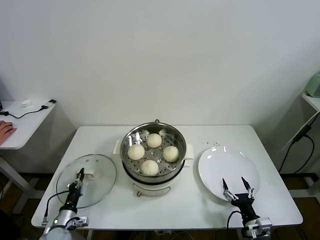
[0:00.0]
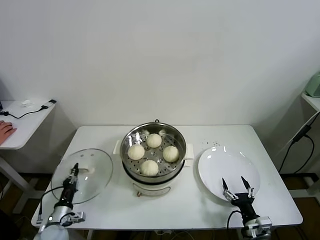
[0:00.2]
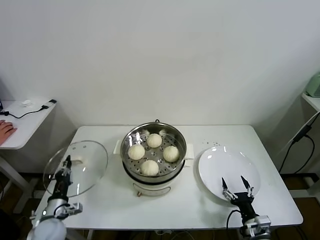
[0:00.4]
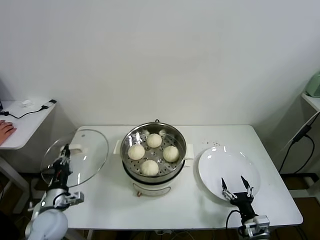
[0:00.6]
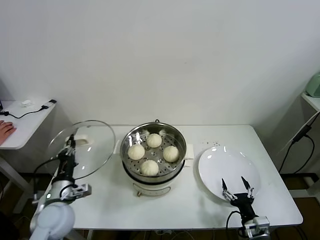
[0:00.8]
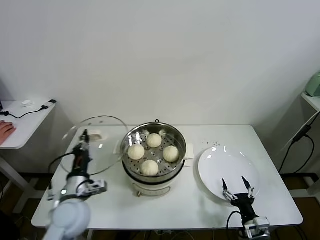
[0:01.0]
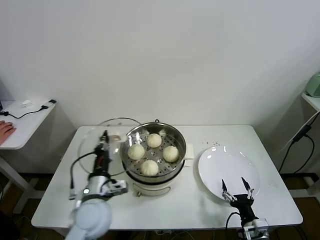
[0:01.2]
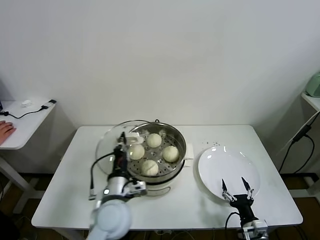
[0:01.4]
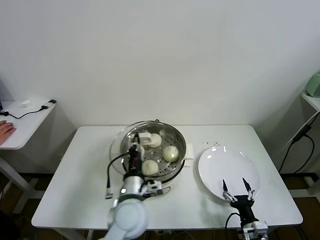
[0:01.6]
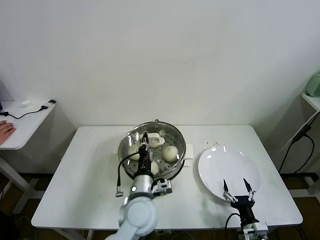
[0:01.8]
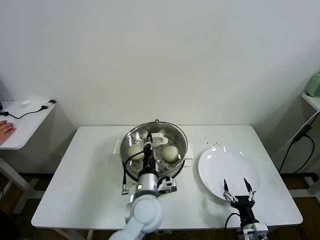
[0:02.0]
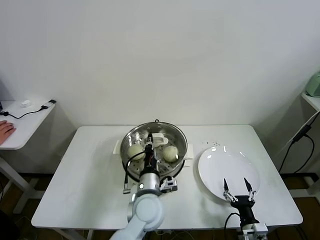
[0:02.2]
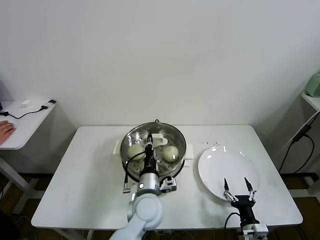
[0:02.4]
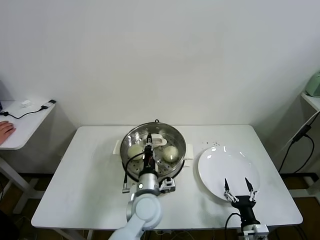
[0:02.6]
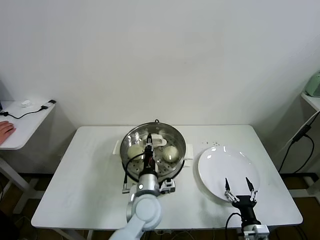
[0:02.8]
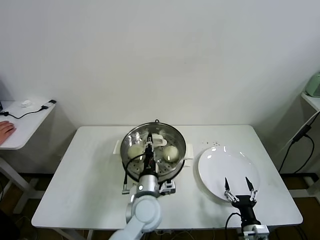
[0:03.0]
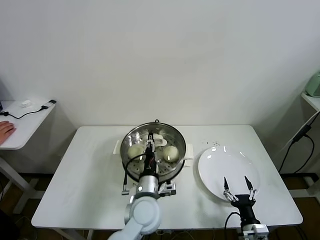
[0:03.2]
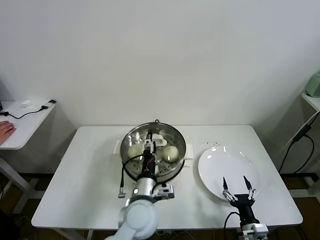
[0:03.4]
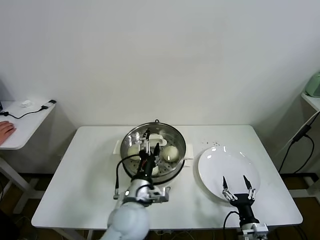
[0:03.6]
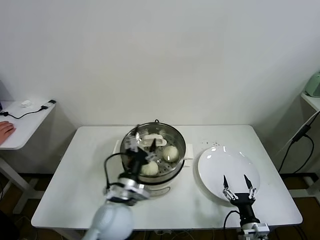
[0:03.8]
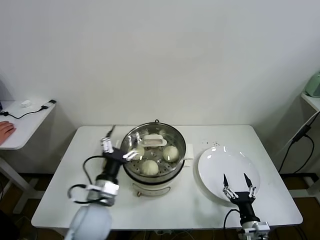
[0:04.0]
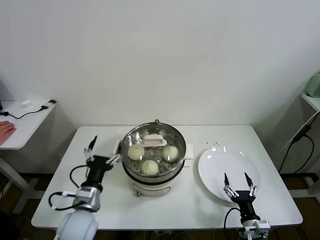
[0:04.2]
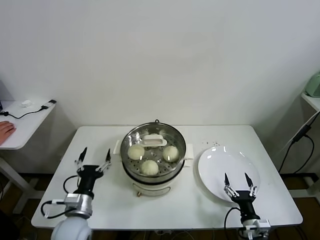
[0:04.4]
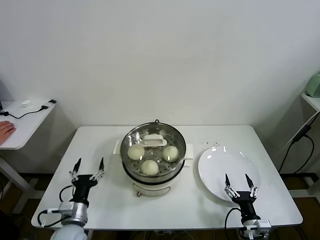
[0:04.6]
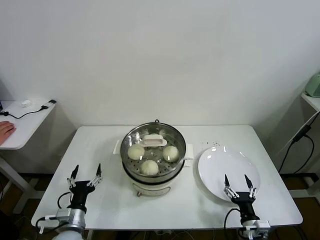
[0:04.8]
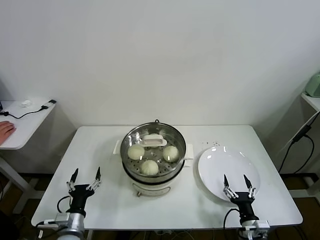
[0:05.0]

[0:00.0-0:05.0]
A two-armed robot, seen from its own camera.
Task of the whole recording: take steamed baozi put them in steamer.
Step, 0:00.0 to 0:03.0: Place the pot lid on the steamer with left gripper.
0:00.0 to 0:01.6: The left gripper shifts approximately 35 cm to the right and upward.
0:01.6 to 0:03.4: The left gripper opens.
0:03.4 to 0:05.0: The left gripper heads to the left and downward, covering approximately 25 cm.
